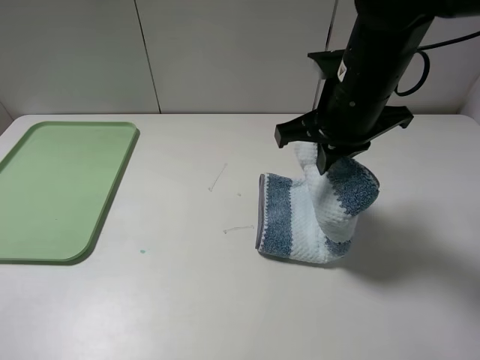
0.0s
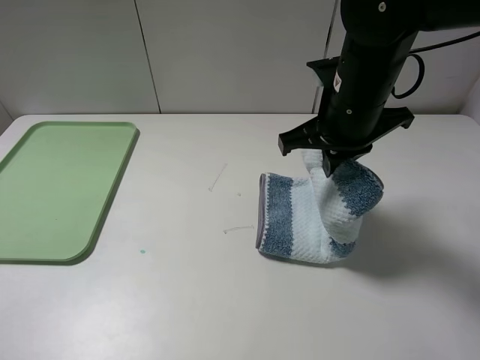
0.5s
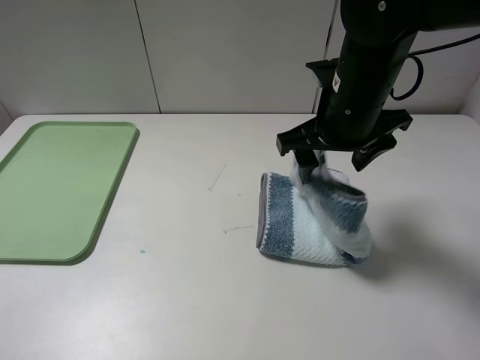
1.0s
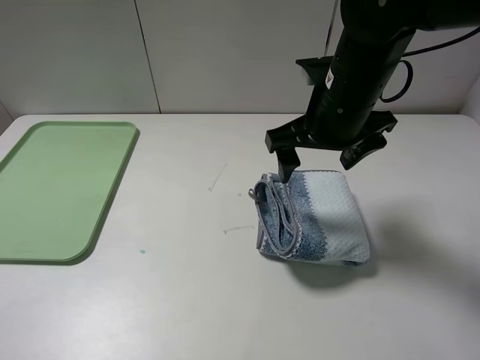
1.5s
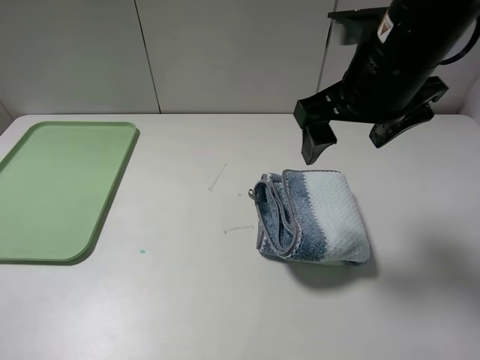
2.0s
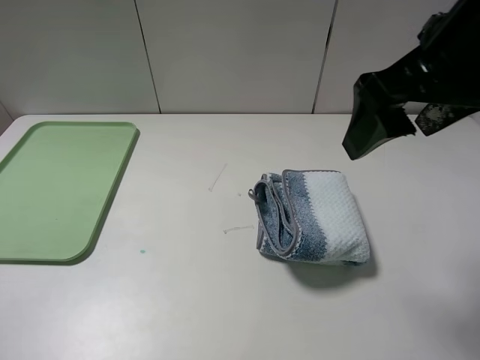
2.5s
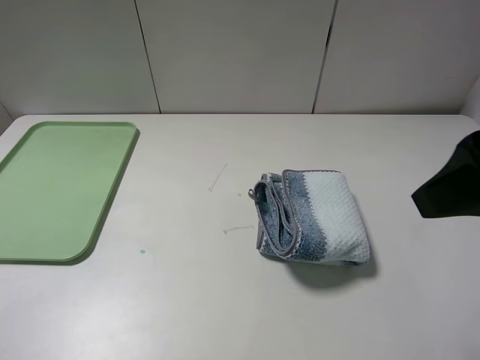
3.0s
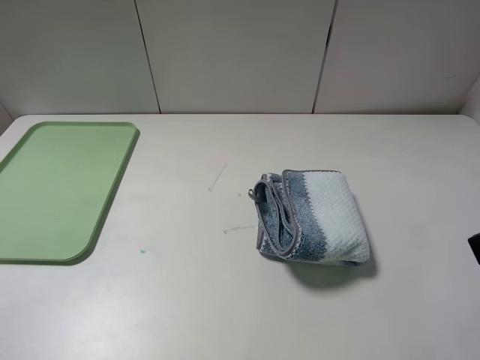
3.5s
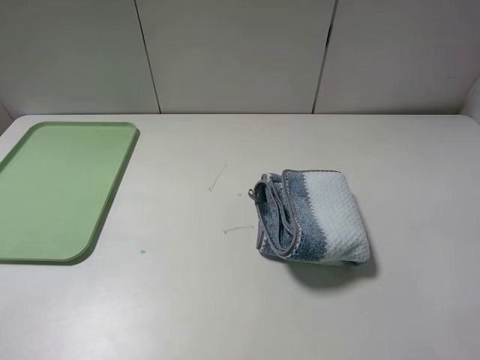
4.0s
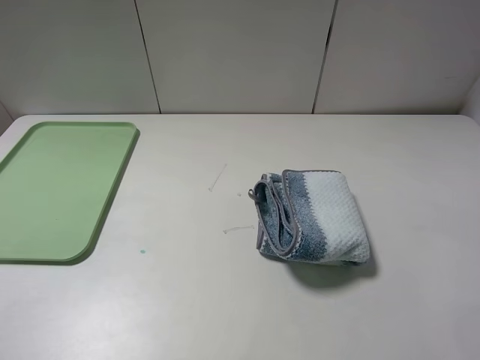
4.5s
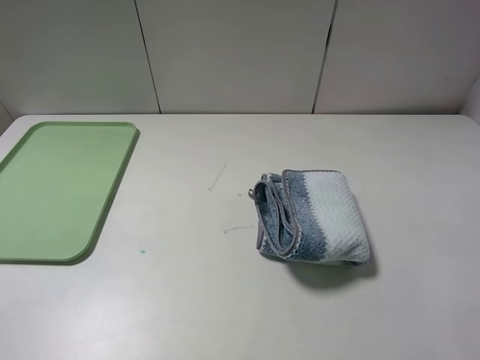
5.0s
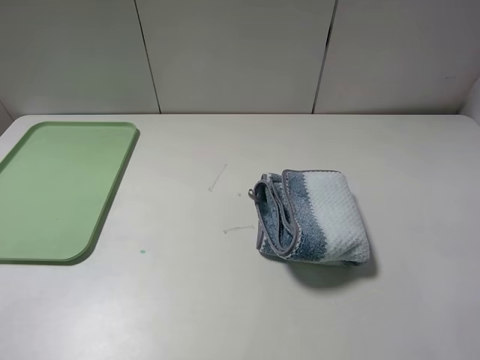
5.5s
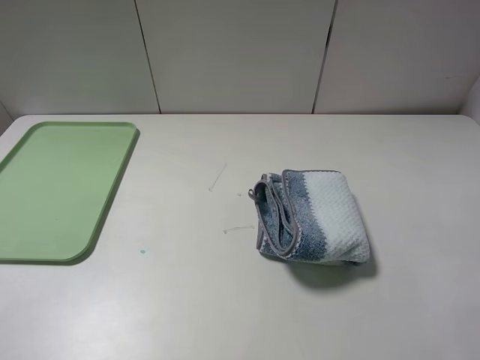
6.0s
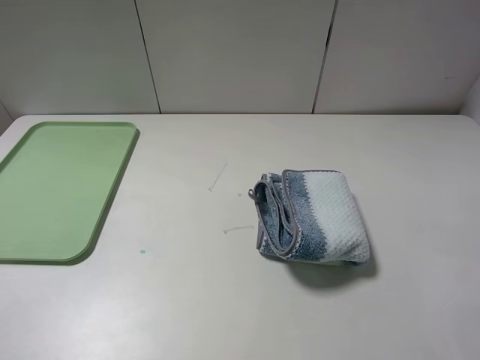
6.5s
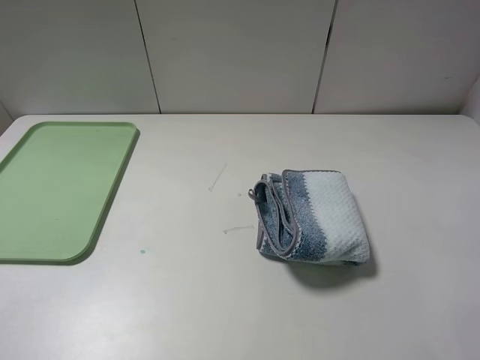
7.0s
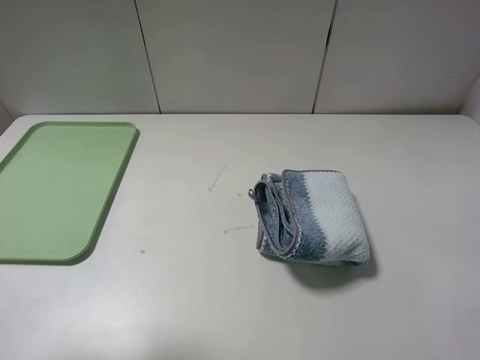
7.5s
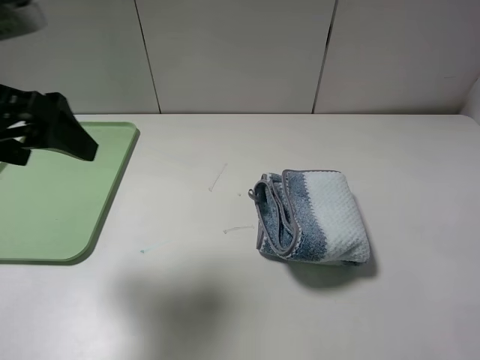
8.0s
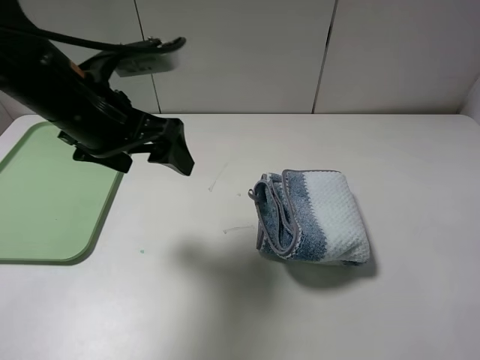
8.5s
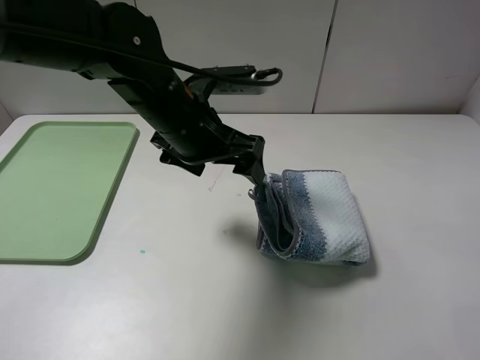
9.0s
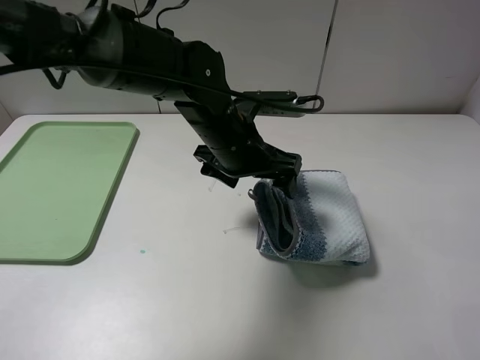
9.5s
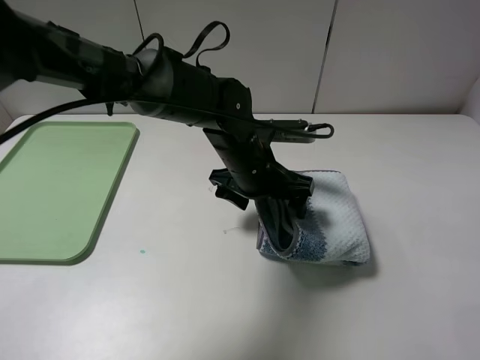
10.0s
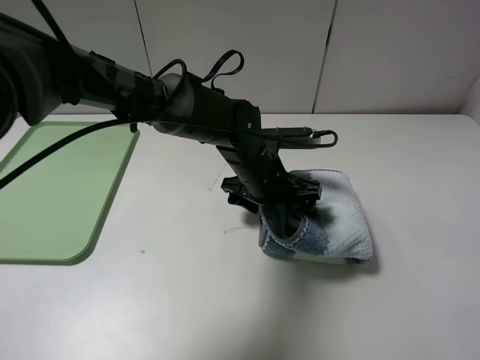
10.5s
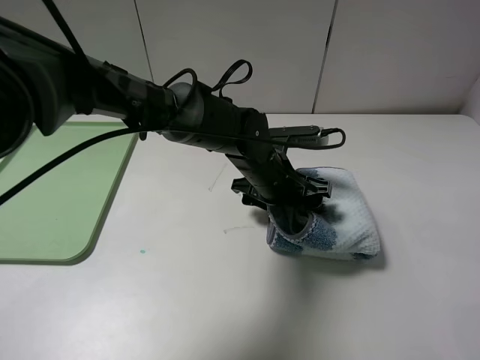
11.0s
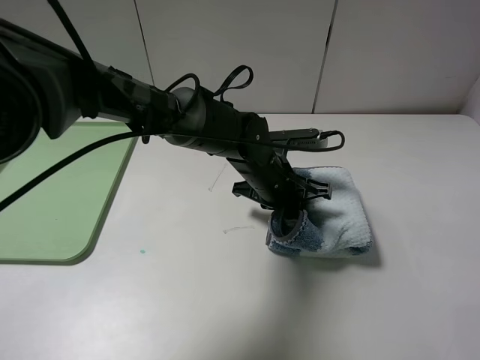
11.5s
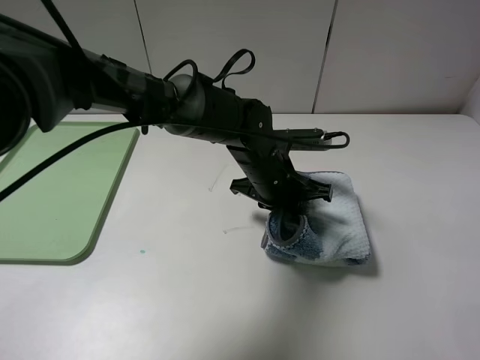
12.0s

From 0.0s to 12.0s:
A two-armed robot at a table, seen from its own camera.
Step, from 2.0s to 11.5s: Grasp the blue white towel with the left gripper.
From 0.0s to 2.0s: The right gripper moves upward, about 5 cm, and opens its fingers.
From 2.0s to 4.0s: The right gripper moves backward and to the right, about 25 cm.
From 6.0s to 8.0s: The left gripper shifts roughly 20 cm forward.
From 8.0s to 10.0s: The left gripper moves to the right and downward, roughly 30 cm.
From 10.0s to 12.0s: The left gripper closes its fingers.

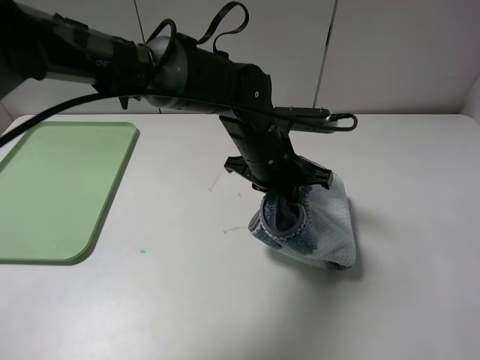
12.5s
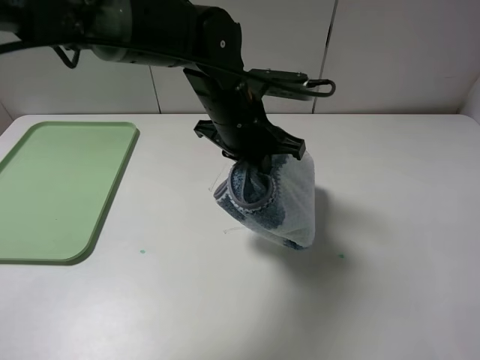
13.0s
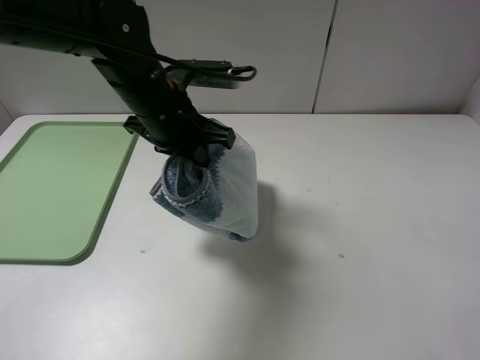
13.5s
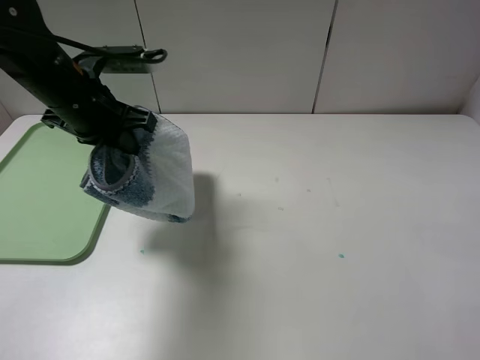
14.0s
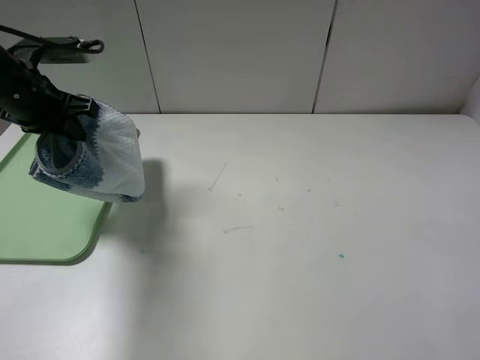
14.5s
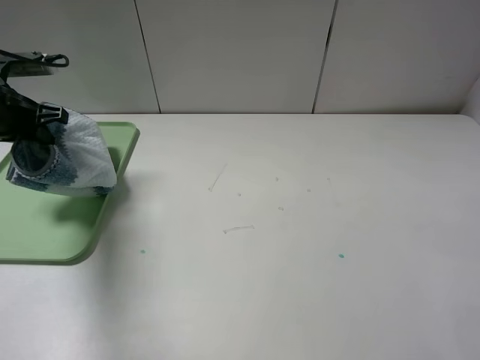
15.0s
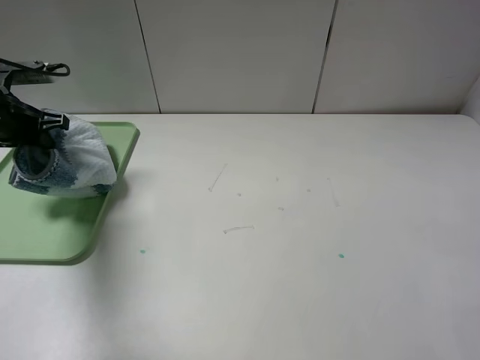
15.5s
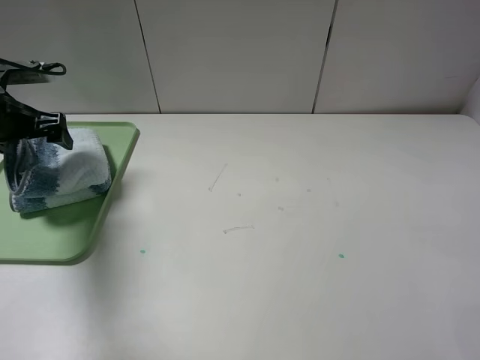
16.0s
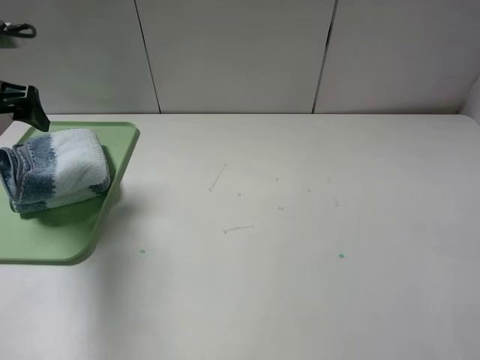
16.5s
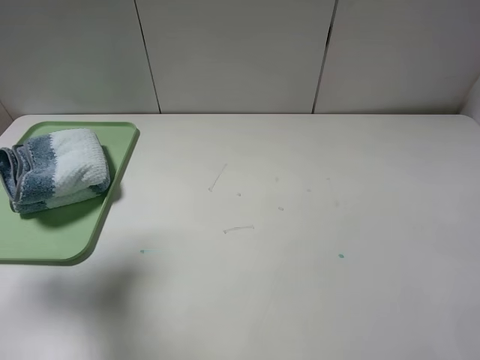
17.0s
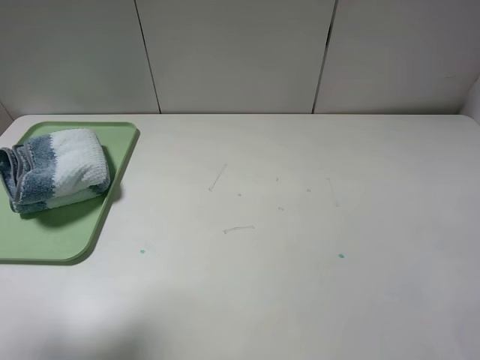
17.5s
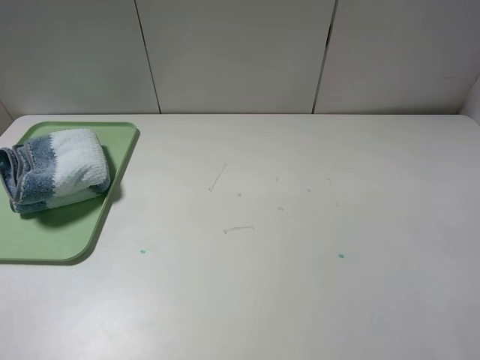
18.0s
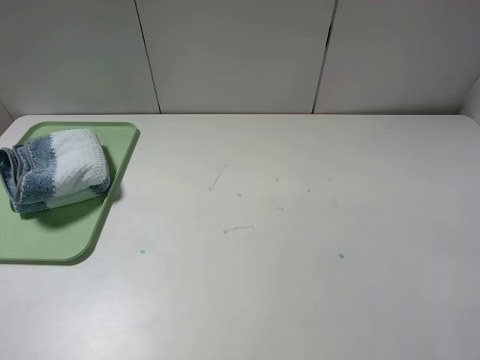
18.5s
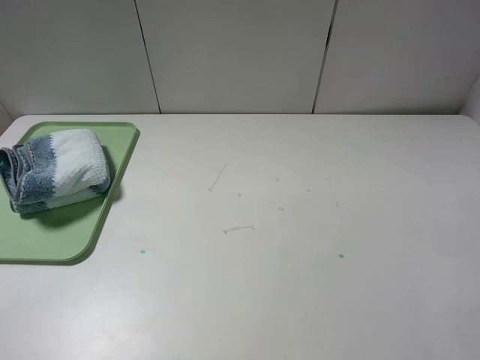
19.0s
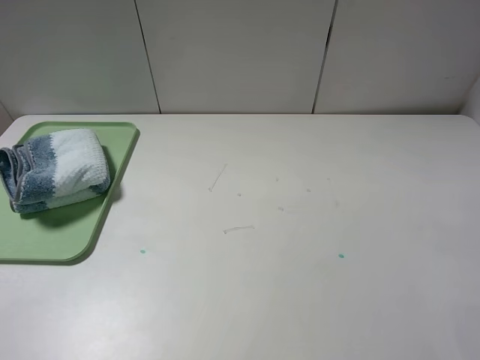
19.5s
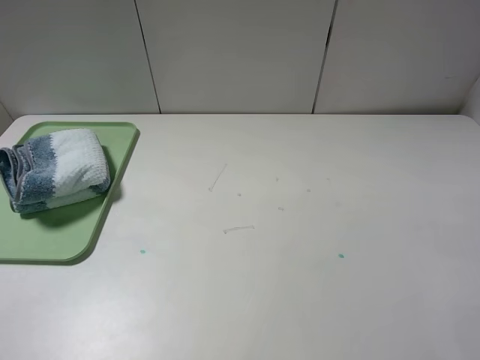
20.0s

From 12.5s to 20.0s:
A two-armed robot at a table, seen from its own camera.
From 12.5s to 14.5s: The left gripper shifts some 35 cm to the left.
From 14.5s to 16.5s: The left gripper goes about 5 cm to the left, and opens up.
From 16.5s to 18.0s: The left gripper travels backward by approximately 30 cm.
